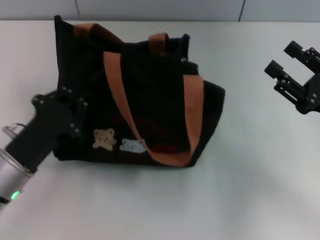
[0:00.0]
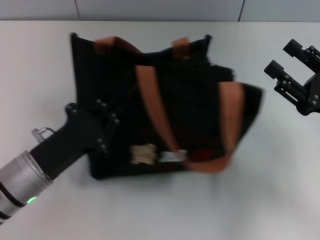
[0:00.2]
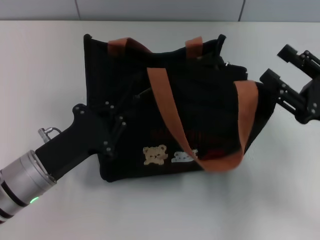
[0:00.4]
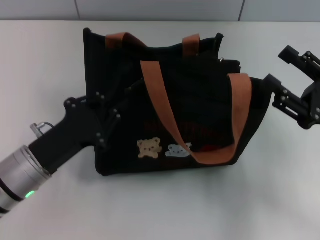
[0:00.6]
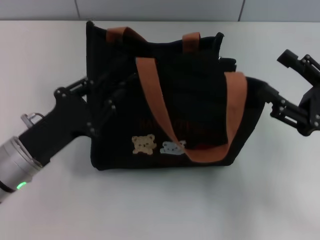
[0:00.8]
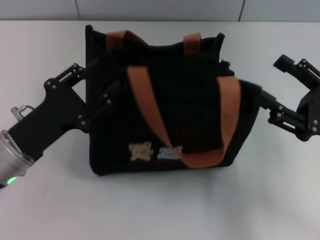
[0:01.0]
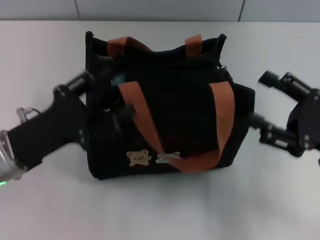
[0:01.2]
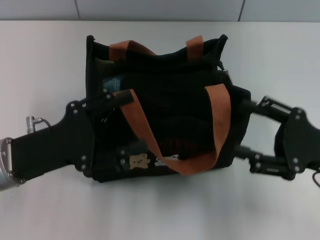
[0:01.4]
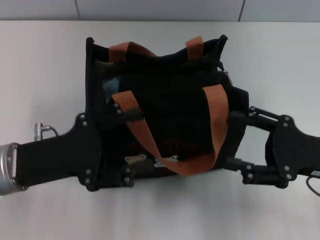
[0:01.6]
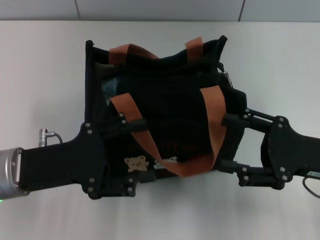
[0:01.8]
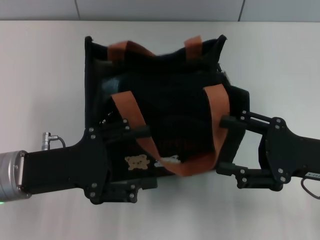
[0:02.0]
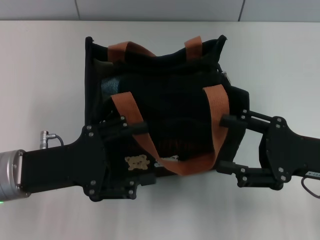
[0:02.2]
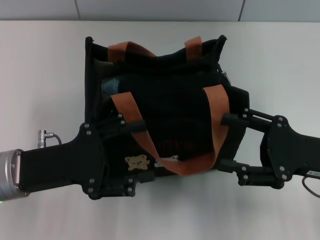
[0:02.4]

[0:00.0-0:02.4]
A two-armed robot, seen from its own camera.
0:00.0 to 0:01.2: The left gripper opens up.
0:01.2 to 0:02.4: The left gripper opens up.

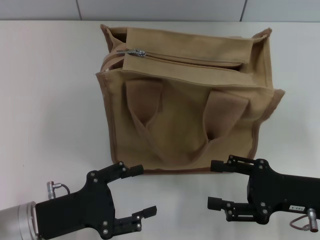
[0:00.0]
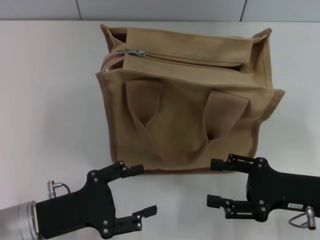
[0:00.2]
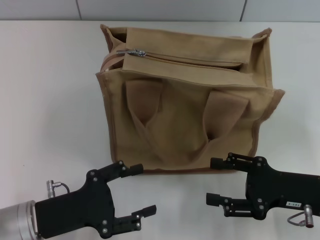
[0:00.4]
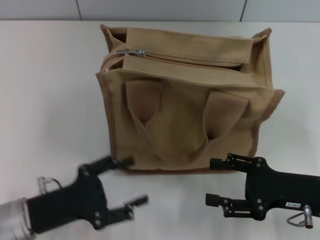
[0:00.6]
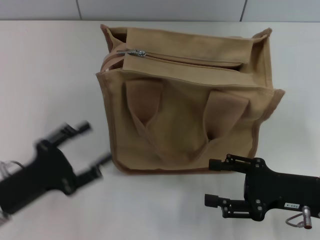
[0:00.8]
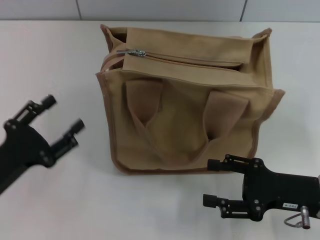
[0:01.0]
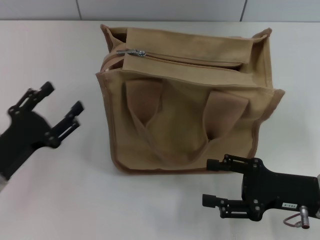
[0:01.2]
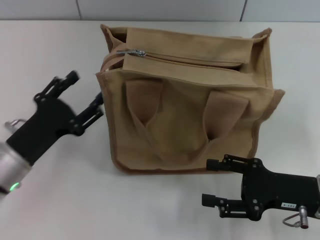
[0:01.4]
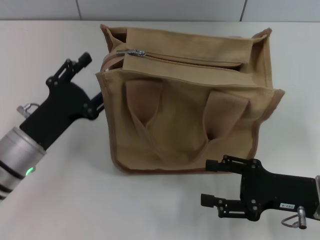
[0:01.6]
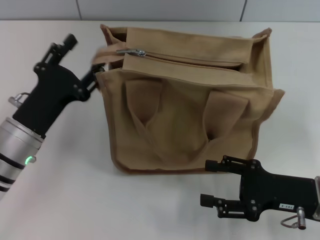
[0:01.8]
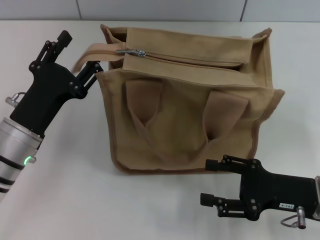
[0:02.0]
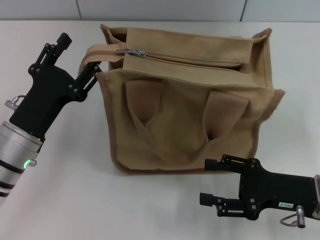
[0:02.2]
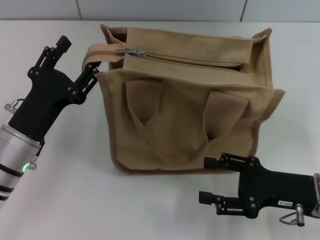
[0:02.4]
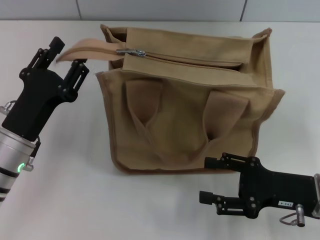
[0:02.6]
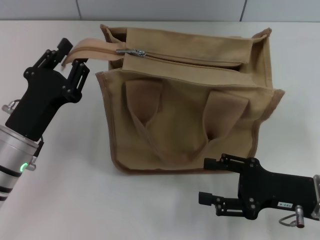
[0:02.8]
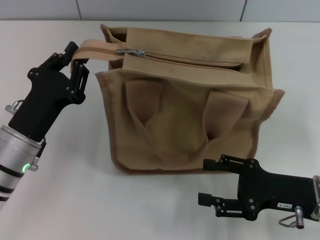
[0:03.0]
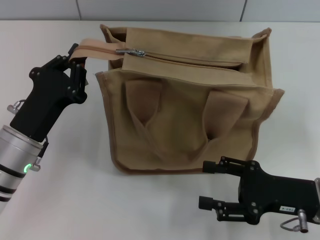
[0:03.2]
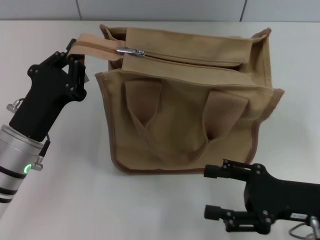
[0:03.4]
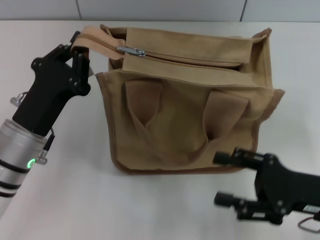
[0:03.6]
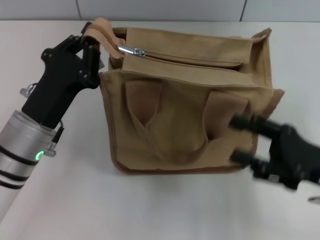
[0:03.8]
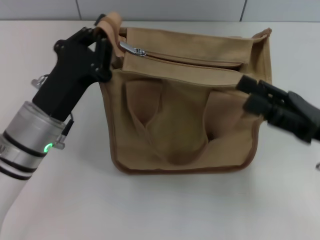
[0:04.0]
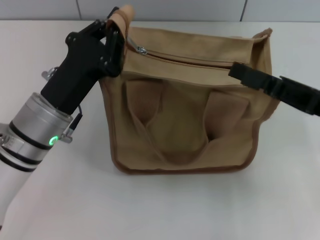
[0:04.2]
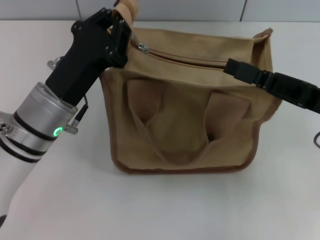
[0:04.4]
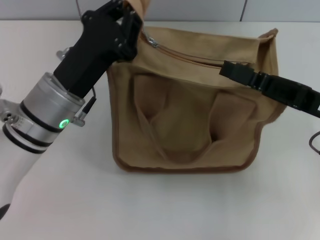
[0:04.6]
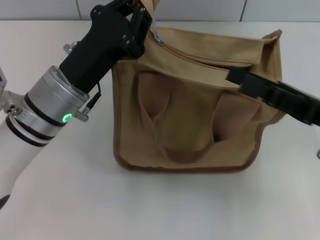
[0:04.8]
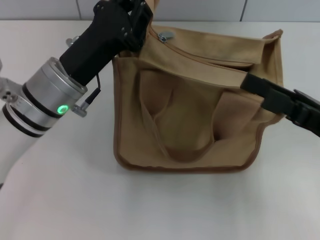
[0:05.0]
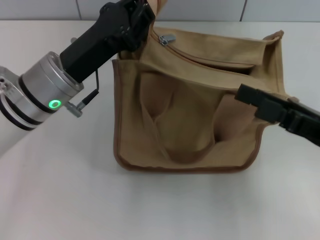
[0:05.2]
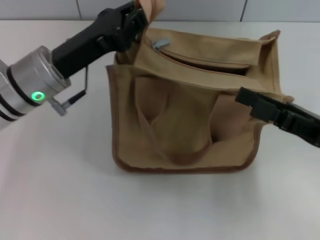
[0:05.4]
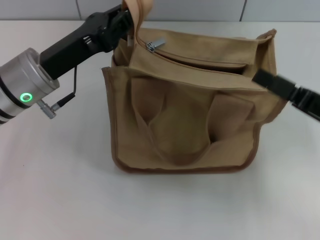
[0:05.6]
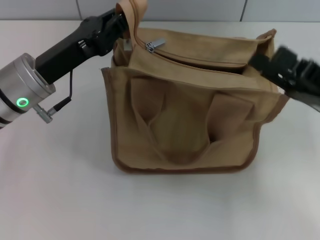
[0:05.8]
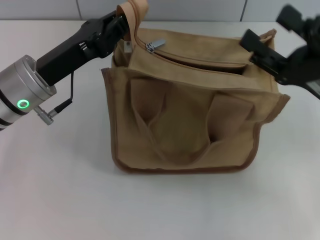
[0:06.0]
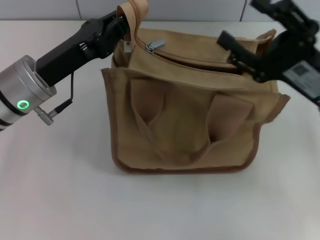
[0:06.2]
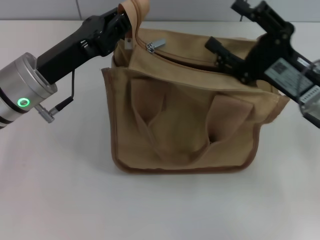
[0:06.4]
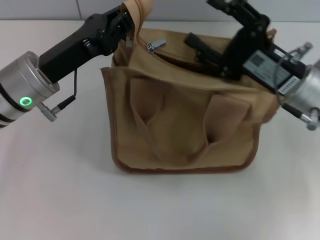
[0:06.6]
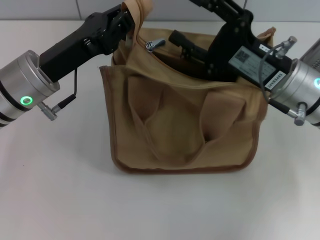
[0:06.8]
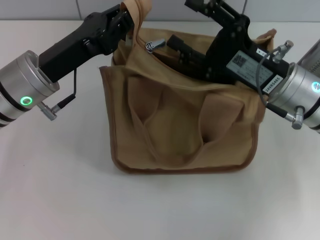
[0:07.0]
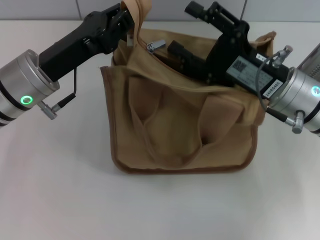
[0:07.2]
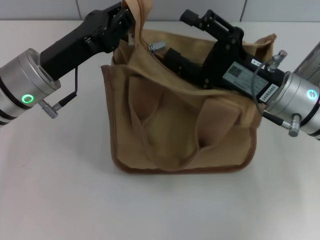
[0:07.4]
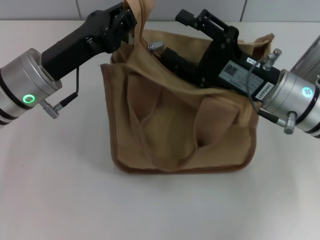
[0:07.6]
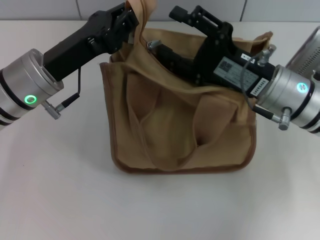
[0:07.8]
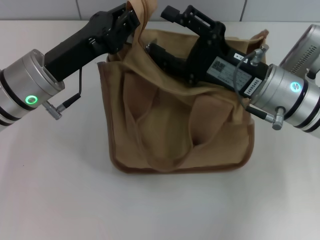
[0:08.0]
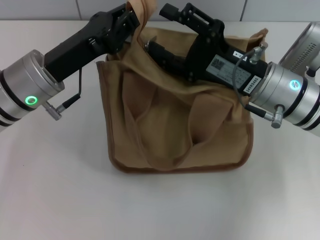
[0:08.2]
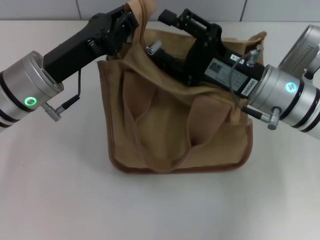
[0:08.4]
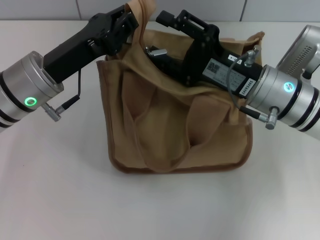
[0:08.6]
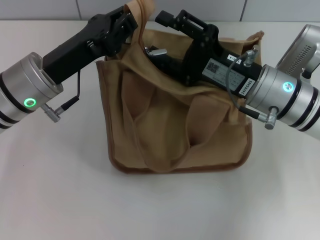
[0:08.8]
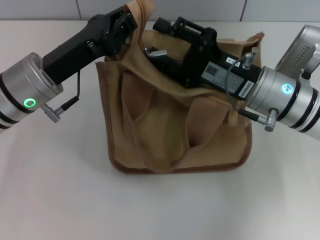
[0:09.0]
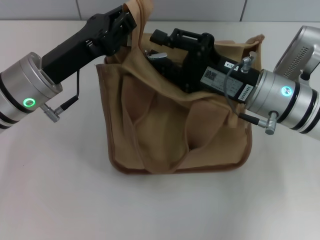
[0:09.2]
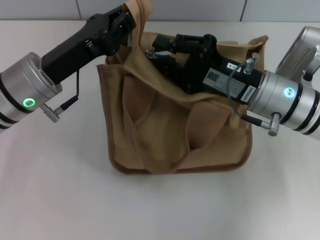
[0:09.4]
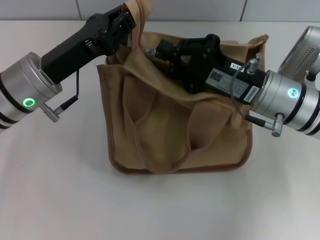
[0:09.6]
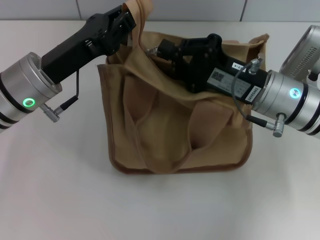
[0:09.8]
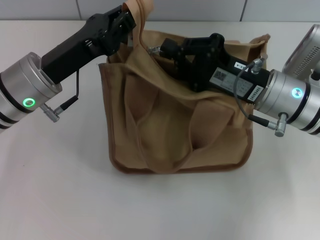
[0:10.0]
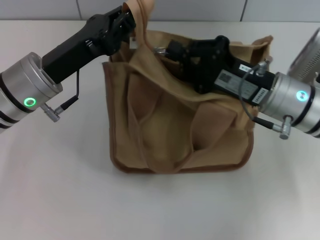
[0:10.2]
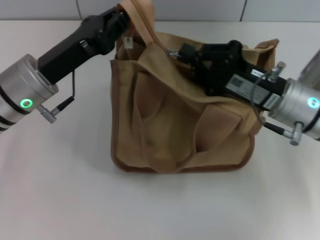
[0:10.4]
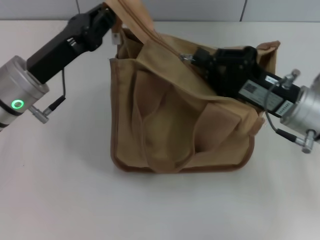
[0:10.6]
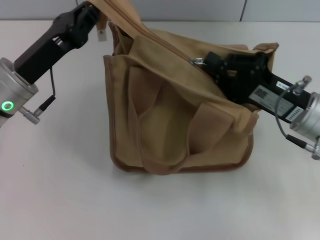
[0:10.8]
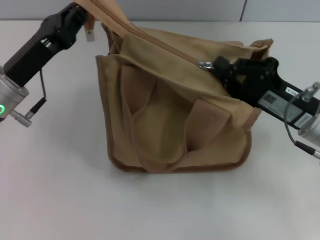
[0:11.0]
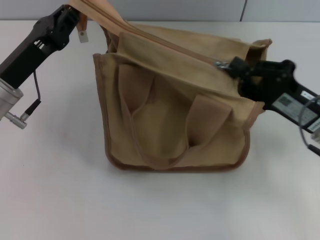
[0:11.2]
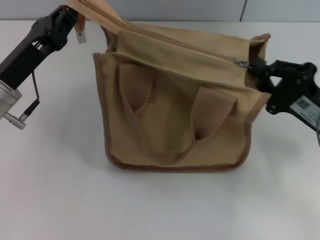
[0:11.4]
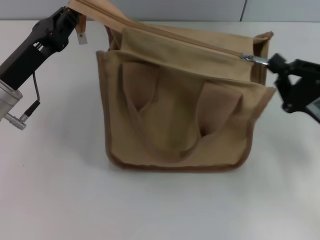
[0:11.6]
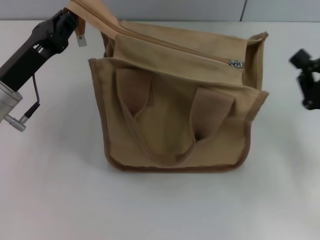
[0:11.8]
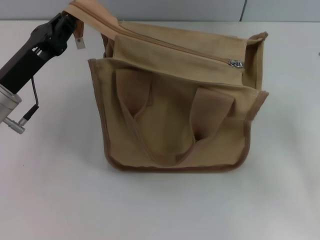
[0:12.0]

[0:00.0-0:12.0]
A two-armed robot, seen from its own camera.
Step, 0:00.0 to 0:11.6: Pull up the zipper with your right hand.
0:00.0 to 0:01.6: The left gripper moves forward, some 5 cm.
0:01.6 to 0:03.0: The left gripper closes.
0:03.0 to 0:04.4: The right gripper travels upward and forward by about 10 cm; the left gripper shifts roughly 5 cm to the right, and closes.
0:04.4 to 0:06.0: The left gripper shifts by approximately 5 cm.
0:06.0 to 0:07.6: The right gripper travels to the left by approximately 5 cm.
0:09.0 to 0:10.4: The right gripper closes.
0:10.4 to 0:12.0: The right gripper goes approximately 15 cm to the right and backward, while the left gripper ends up about 5 cm from where it was.

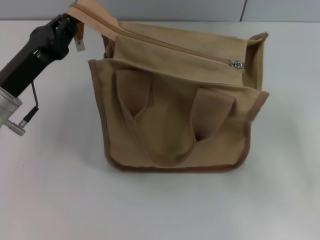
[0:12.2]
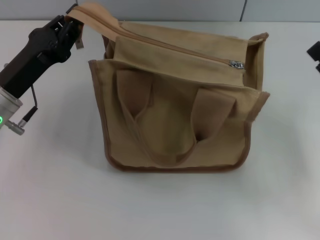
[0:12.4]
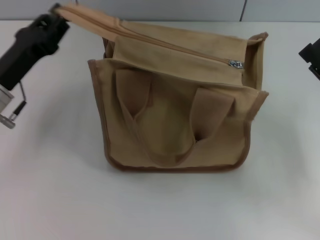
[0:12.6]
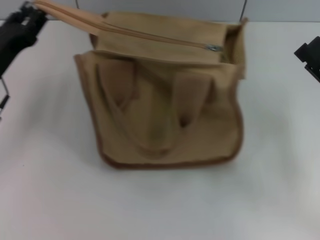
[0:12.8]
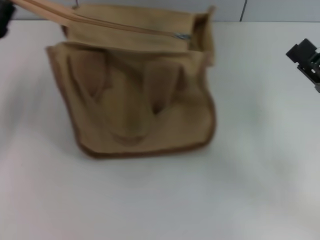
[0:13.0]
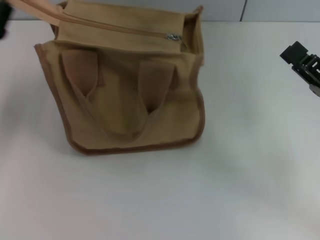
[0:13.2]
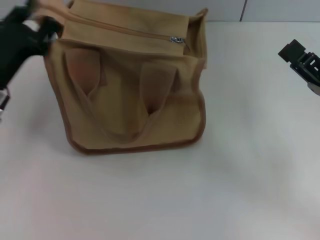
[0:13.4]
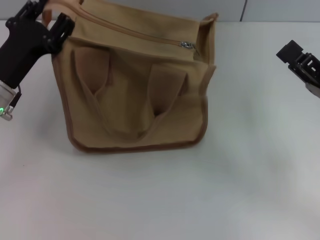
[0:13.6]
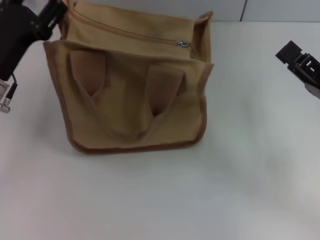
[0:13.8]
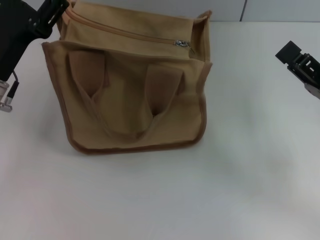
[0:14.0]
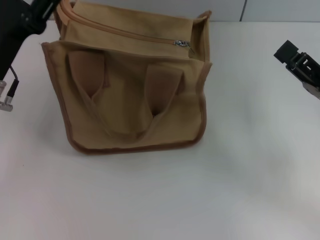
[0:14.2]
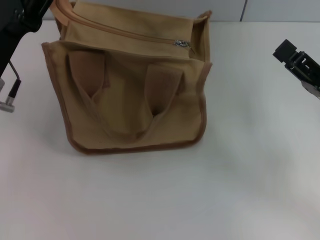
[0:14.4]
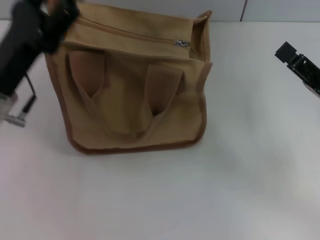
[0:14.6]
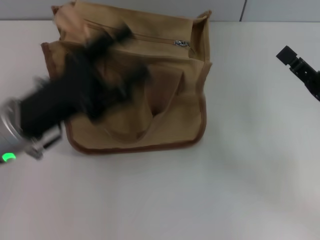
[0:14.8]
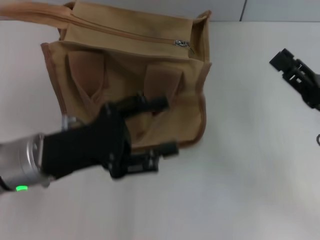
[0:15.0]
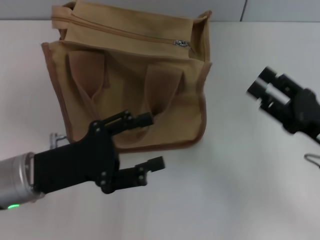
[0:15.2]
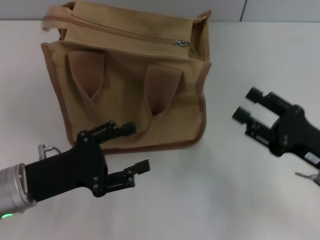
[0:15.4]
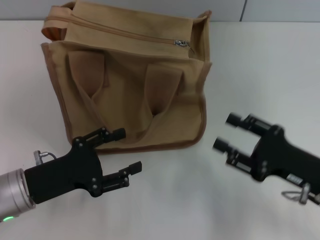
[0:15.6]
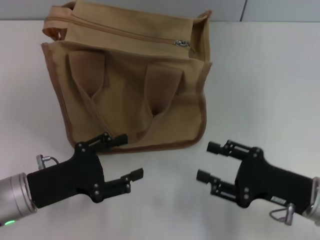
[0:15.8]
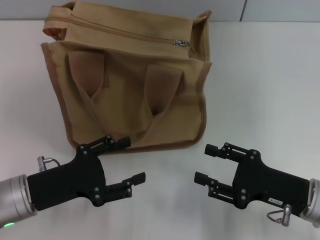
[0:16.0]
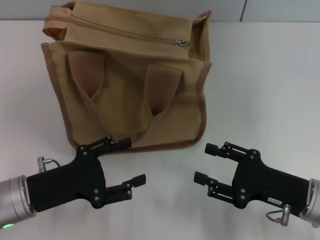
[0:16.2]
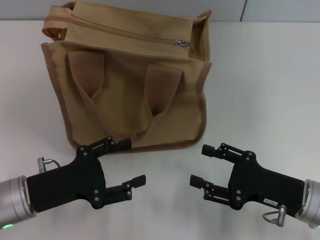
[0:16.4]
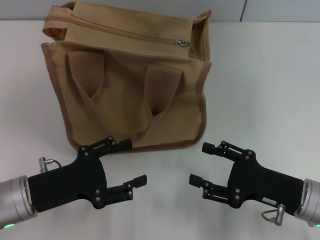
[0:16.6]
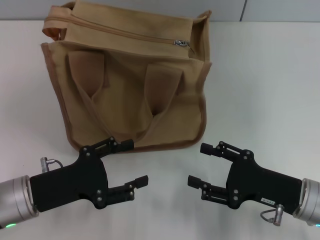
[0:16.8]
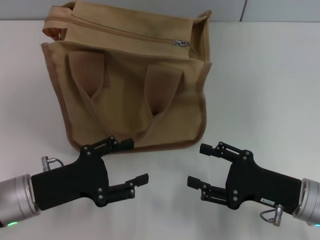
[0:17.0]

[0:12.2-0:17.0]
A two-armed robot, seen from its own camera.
Step, 0:12.2 to 0:14.8: Grab the zipper with your left hand.
0:12.2 to 0:13.8: The left gripper opens its fingers; the right gripper opens up.
0:13.8 to 0:15.4: The left gripper moves backward, about 10 cm.

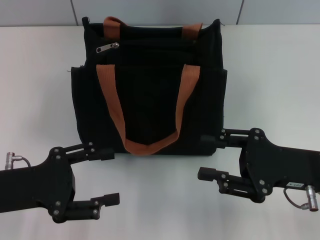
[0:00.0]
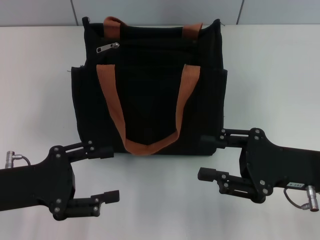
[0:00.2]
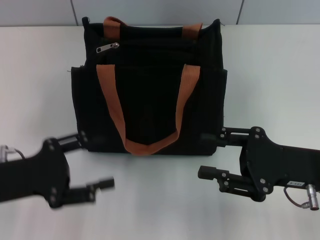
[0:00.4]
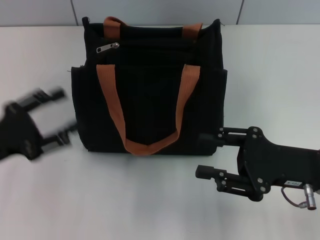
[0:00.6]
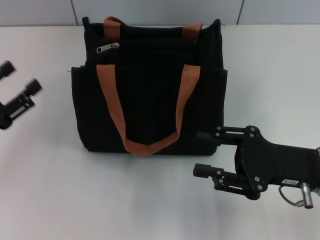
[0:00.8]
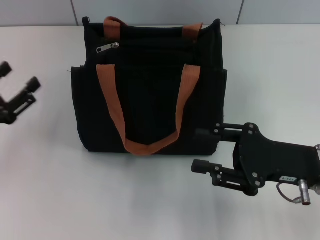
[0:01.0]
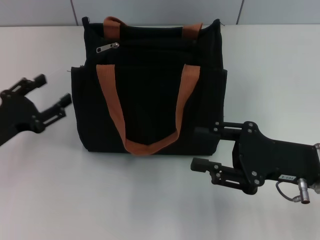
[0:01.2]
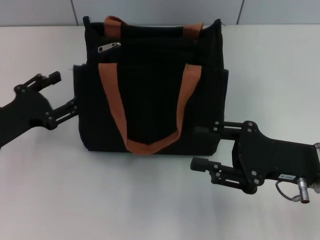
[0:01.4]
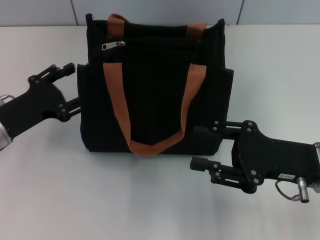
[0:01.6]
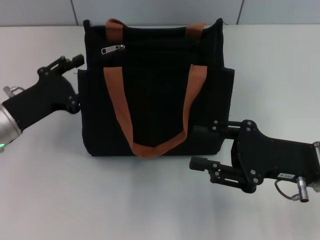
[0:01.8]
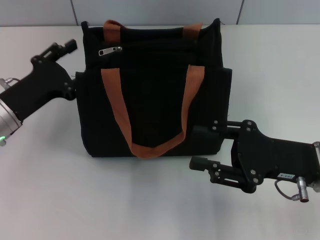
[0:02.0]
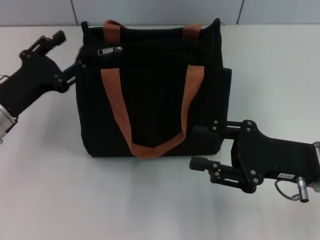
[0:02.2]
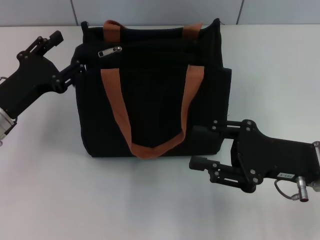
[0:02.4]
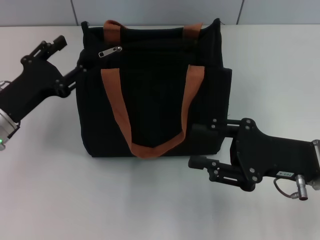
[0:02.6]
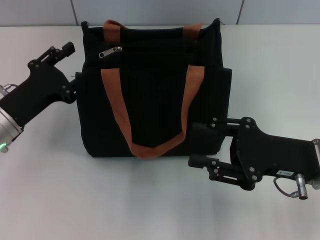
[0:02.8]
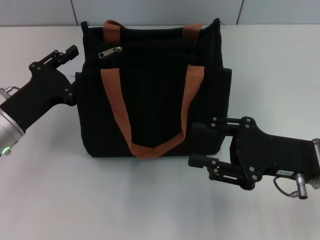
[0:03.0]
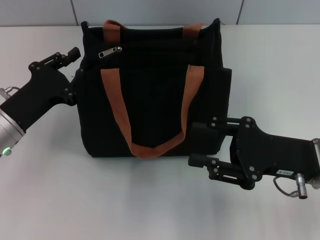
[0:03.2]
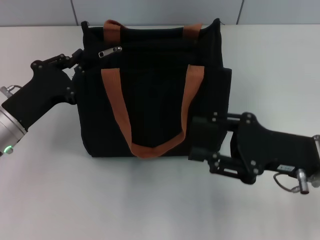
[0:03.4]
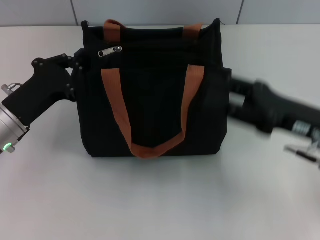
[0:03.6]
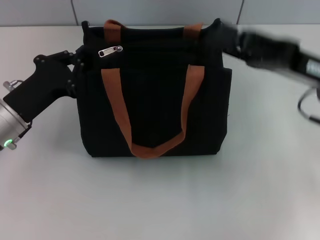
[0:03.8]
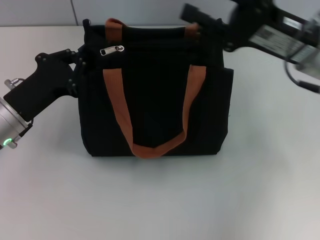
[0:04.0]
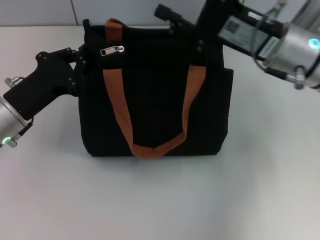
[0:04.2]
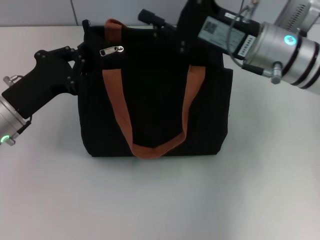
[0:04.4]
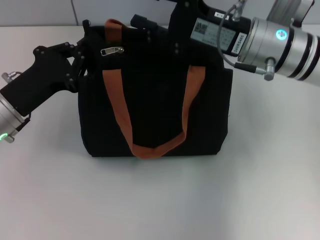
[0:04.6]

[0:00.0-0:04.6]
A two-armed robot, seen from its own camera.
0:00.0 to 0:01.6: The left gripper moves forward, about 5 cm.
0:01.6 to 0:03.0: The grippers make only small movements.
0:03.0 to 0:04.6: The left gripper closes up, while the right gripper travels forward, to the left and upward by about 15 cm.
